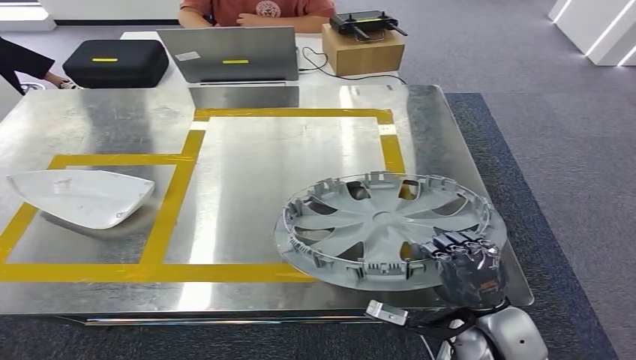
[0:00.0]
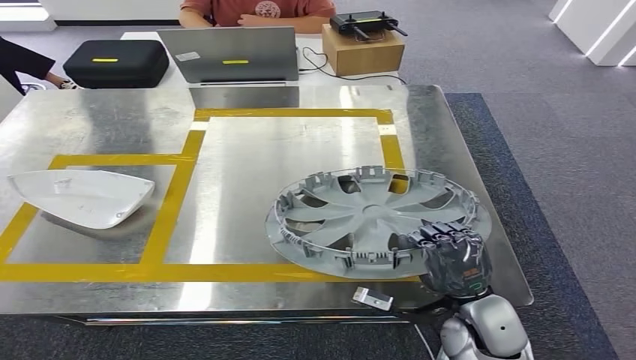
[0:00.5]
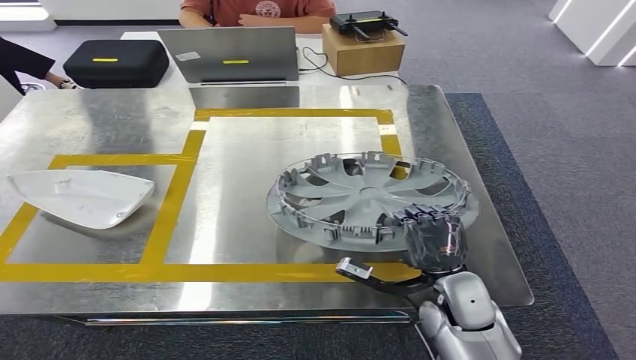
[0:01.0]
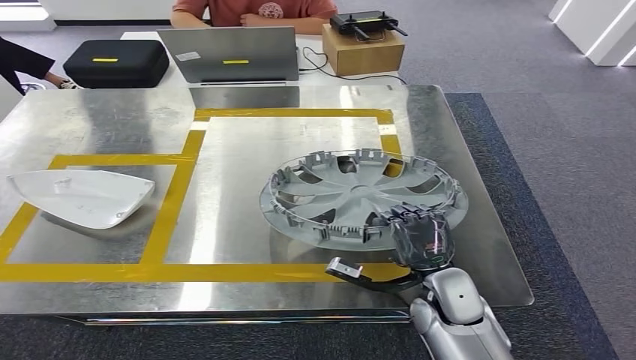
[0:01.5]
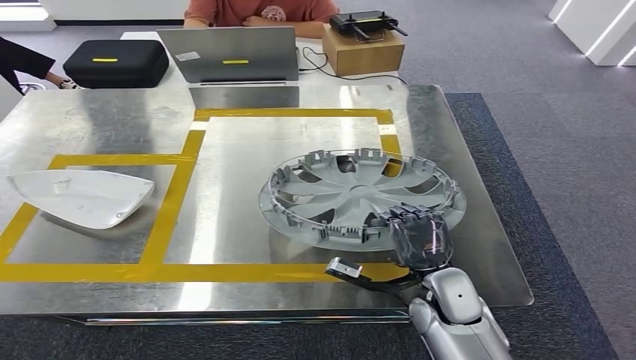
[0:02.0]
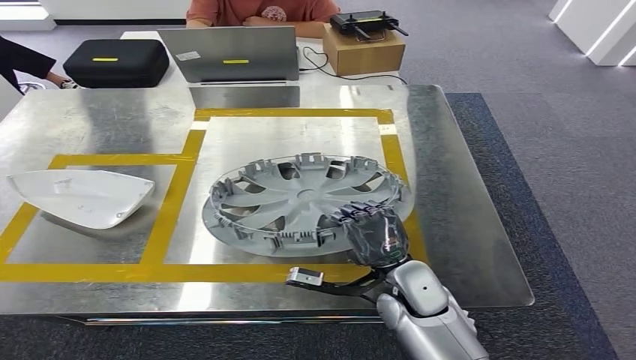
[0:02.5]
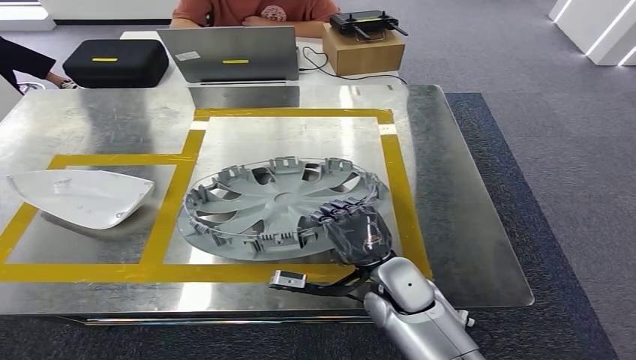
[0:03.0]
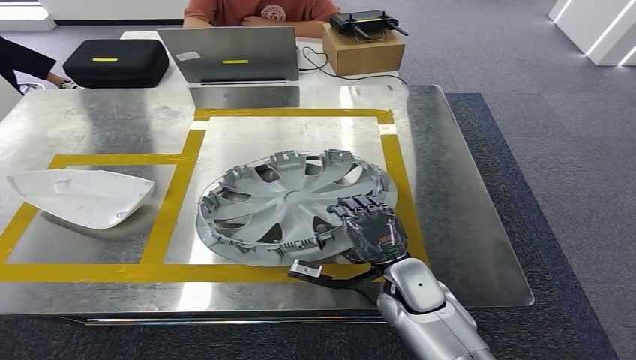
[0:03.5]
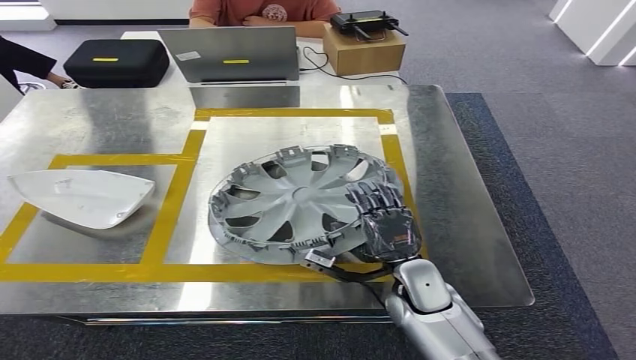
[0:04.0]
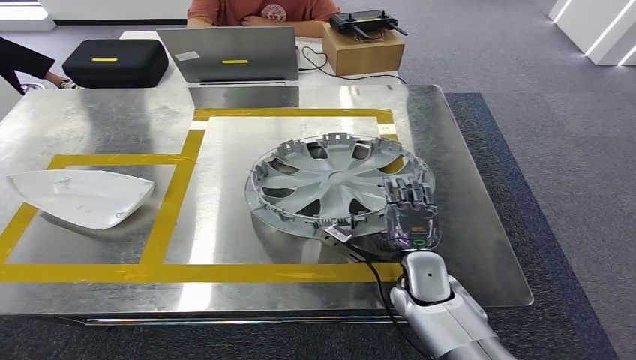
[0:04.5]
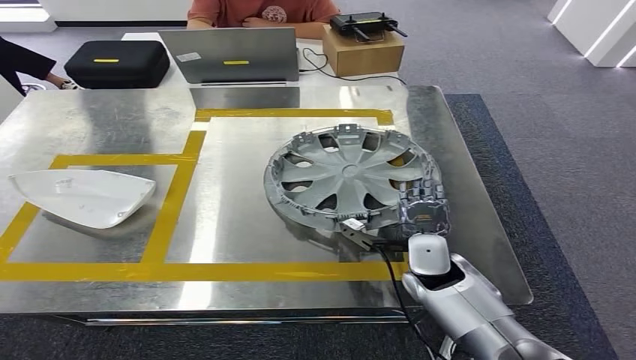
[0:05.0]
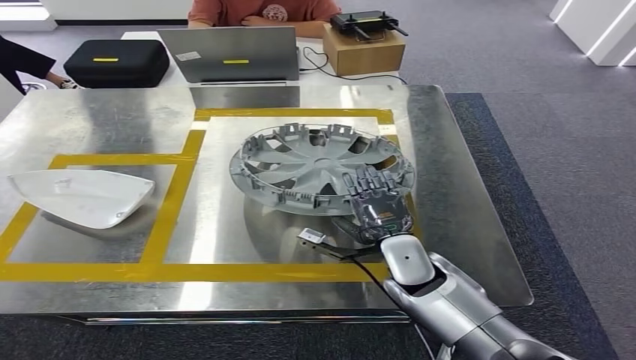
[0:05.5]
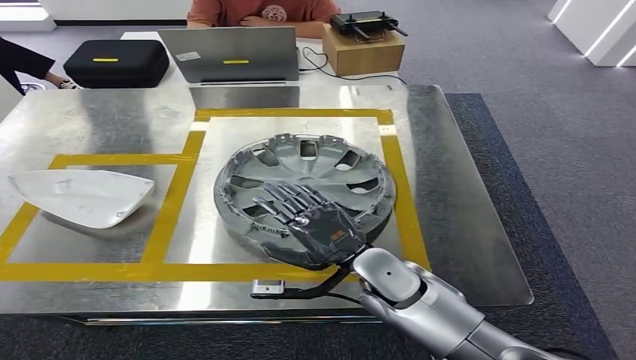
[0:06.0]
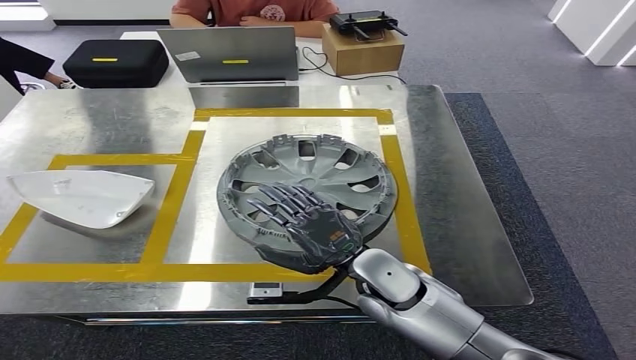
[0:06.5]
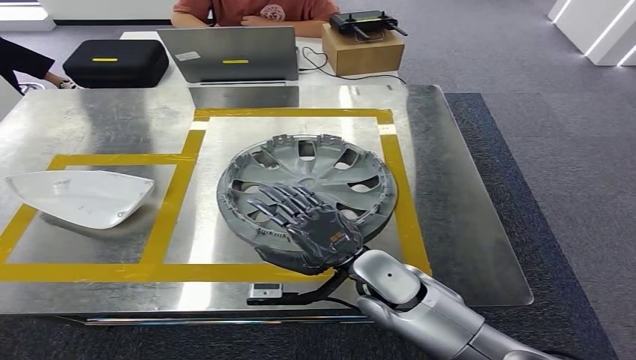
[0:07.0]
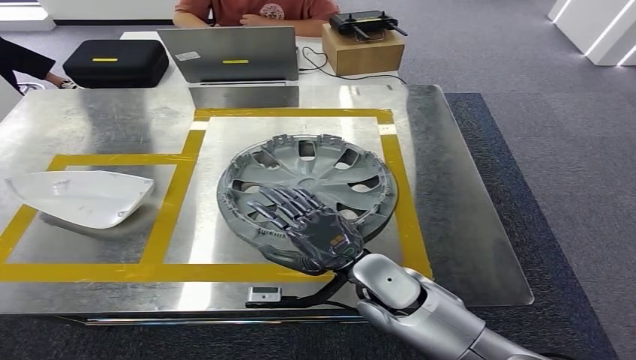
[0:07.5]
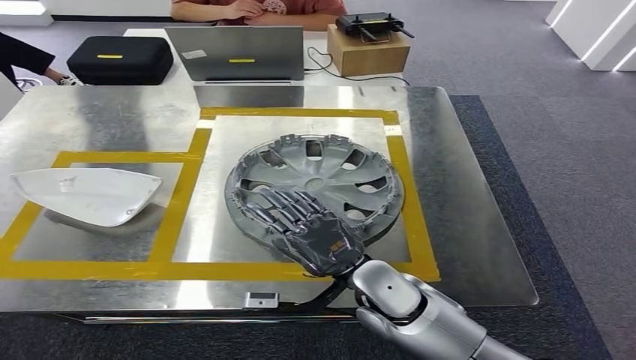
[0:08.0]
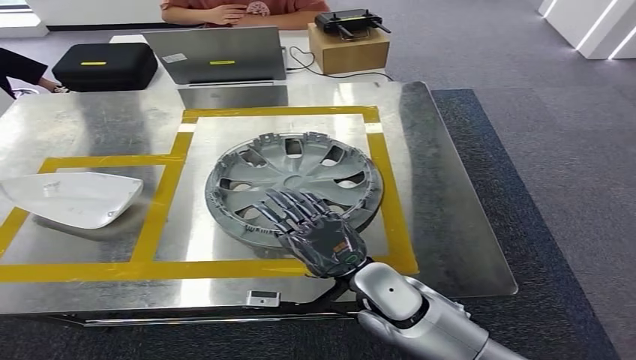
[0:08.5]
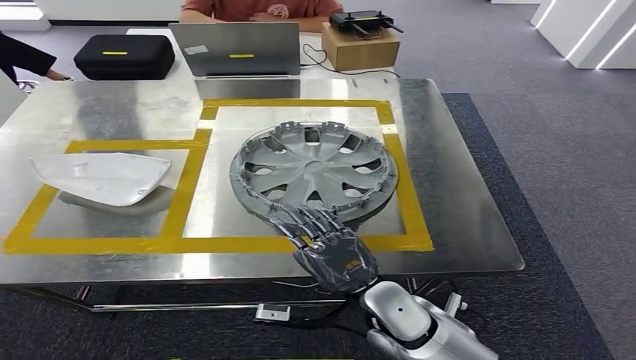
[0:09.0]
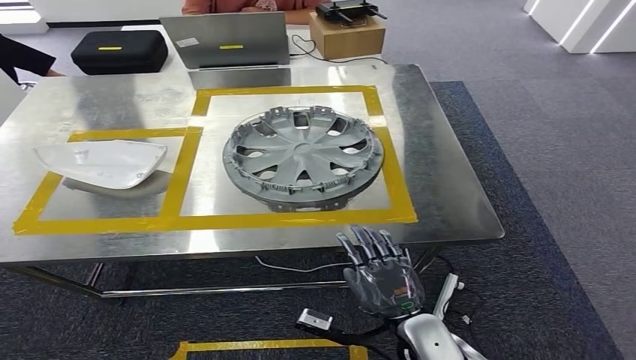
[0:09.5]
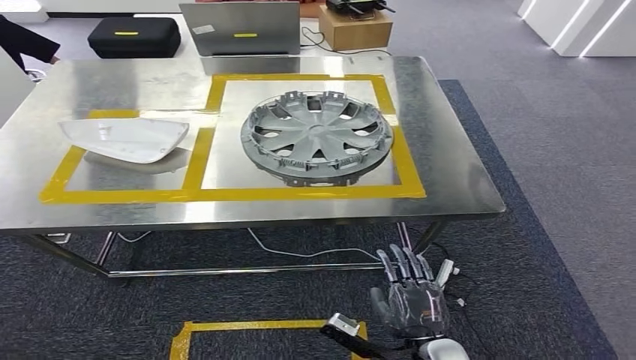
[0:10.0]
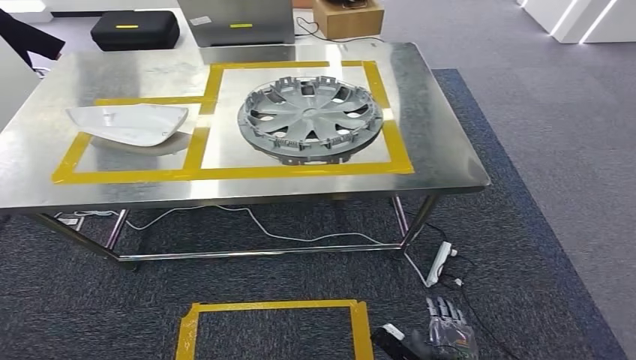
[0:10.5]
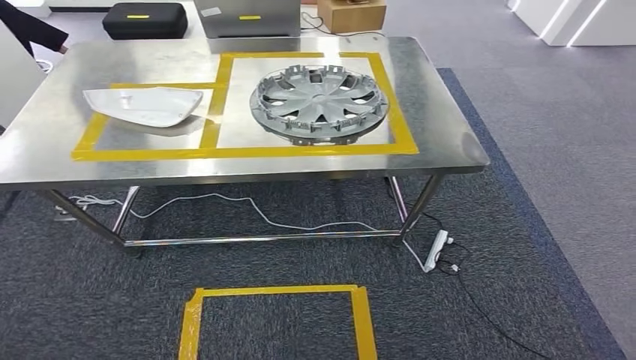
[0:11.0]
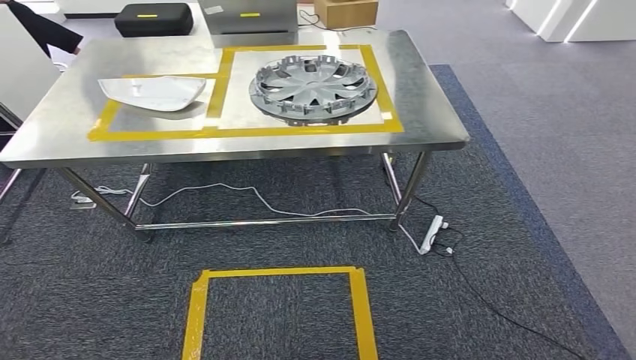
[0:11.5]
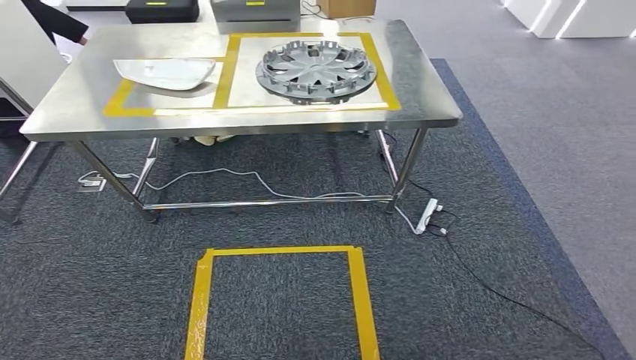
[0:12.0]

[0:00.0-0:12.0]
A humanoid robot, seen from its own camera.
Step, 0:00.0 to 0:10.0: Insert the small parts into the corresponding holes on the workbench.
0:00.0 to 0:02.0: The right hand is displaced forward and to the left by approximately 10 cm.
0:04.0 to 0:06.0: The right hand is displaced to the left and upward by some 5 cm.

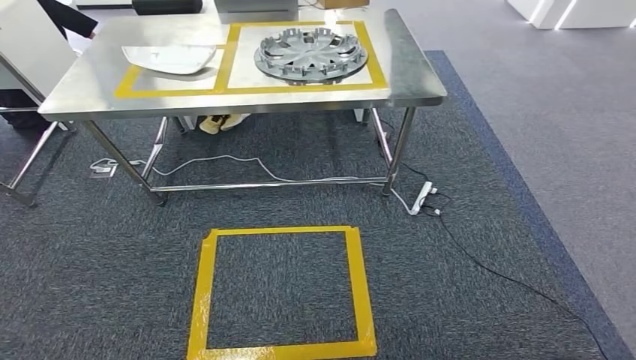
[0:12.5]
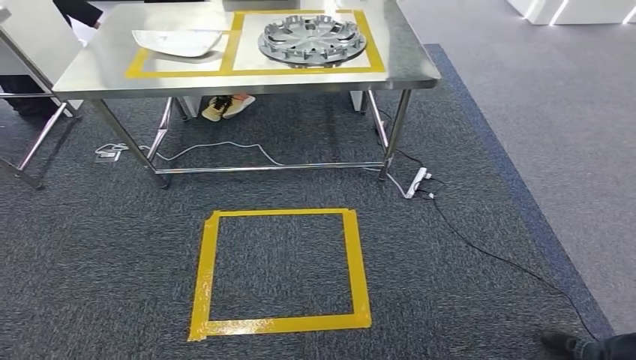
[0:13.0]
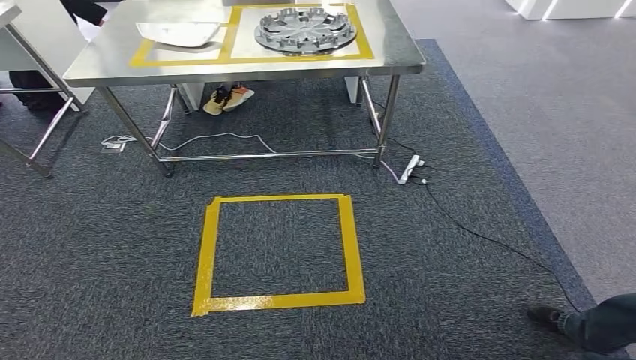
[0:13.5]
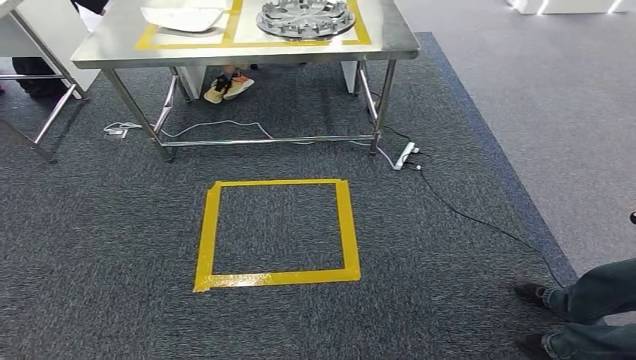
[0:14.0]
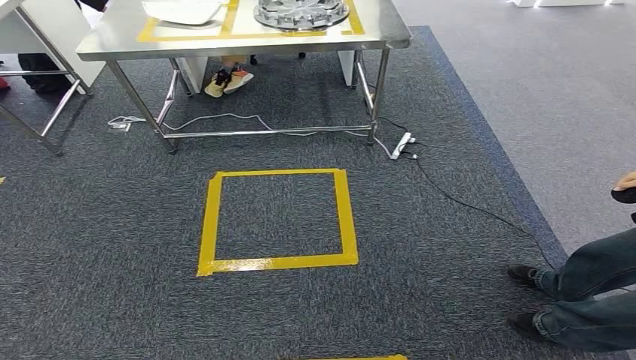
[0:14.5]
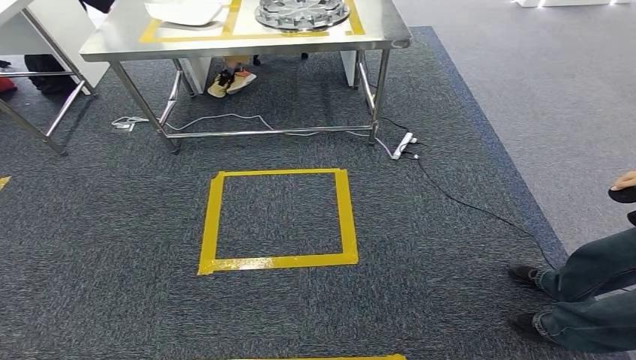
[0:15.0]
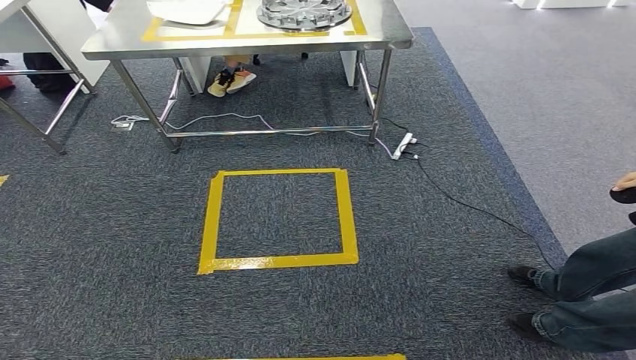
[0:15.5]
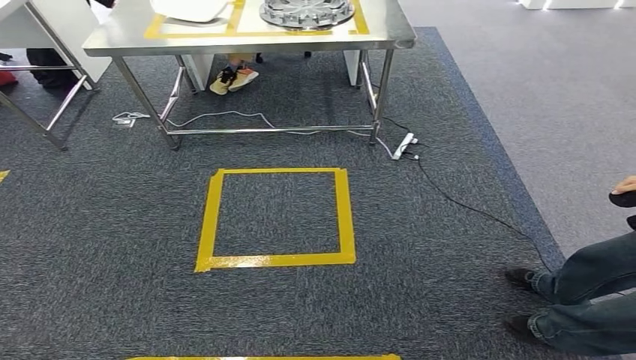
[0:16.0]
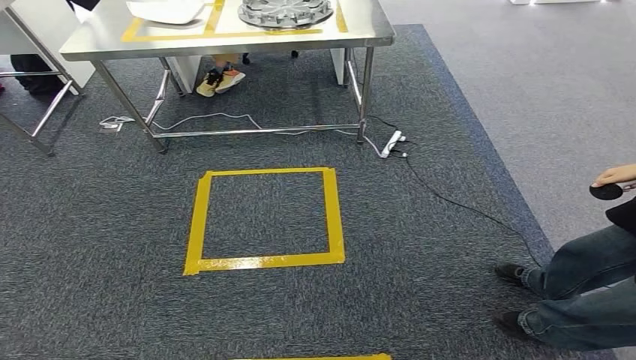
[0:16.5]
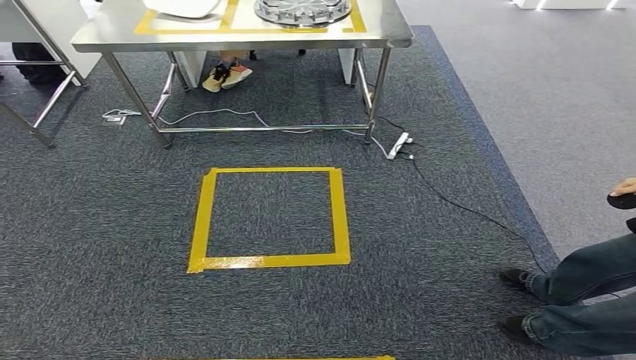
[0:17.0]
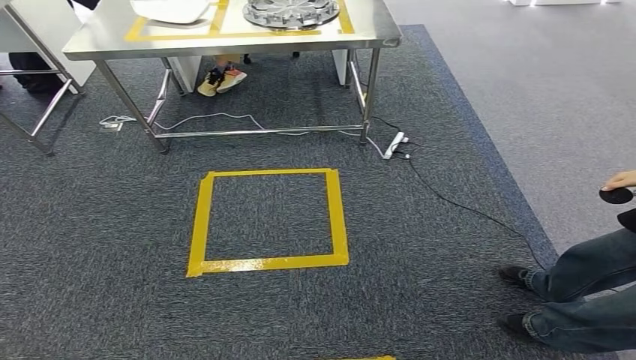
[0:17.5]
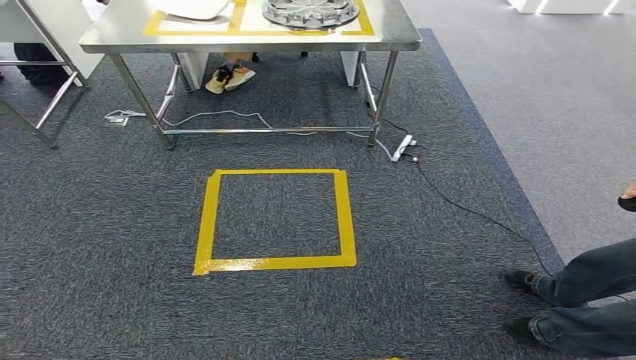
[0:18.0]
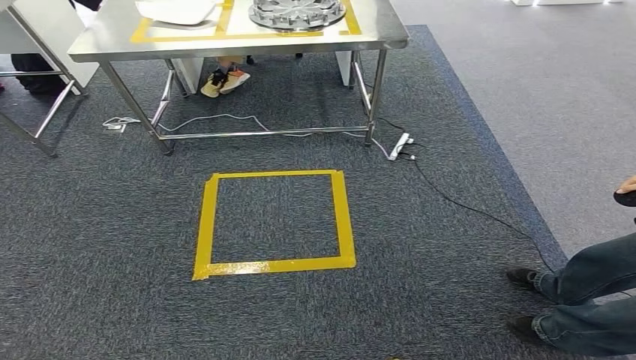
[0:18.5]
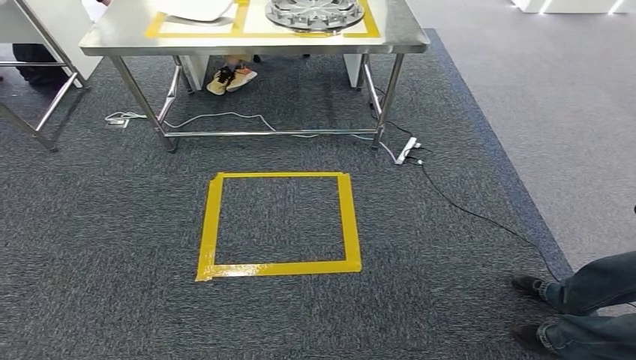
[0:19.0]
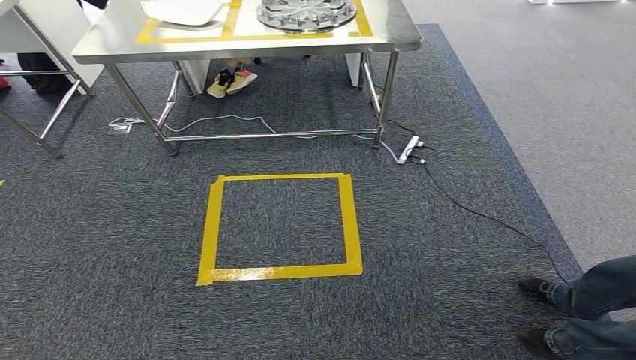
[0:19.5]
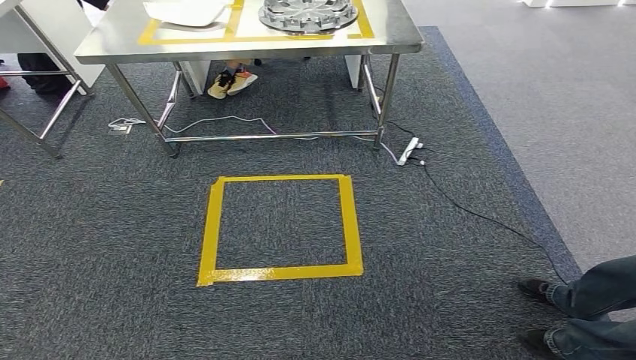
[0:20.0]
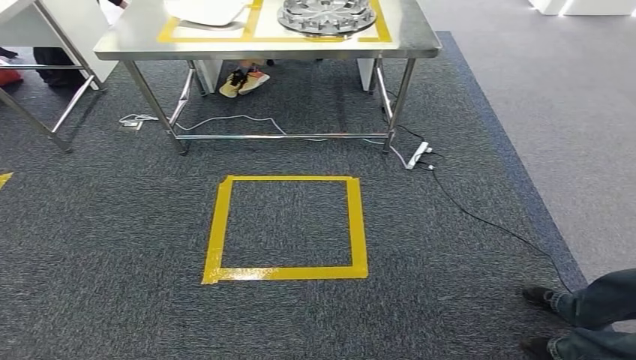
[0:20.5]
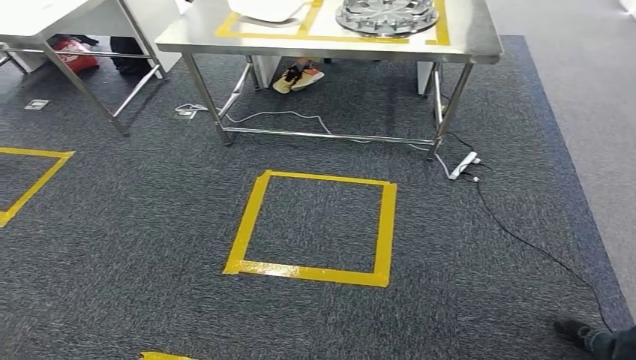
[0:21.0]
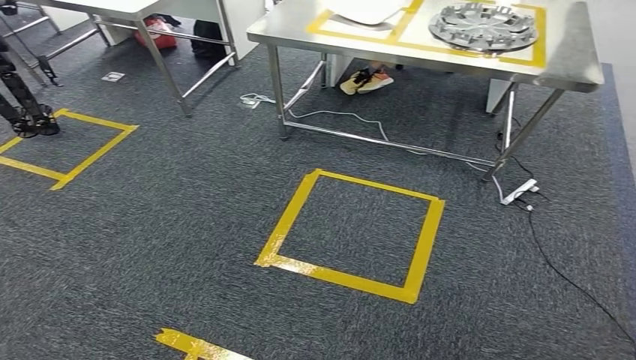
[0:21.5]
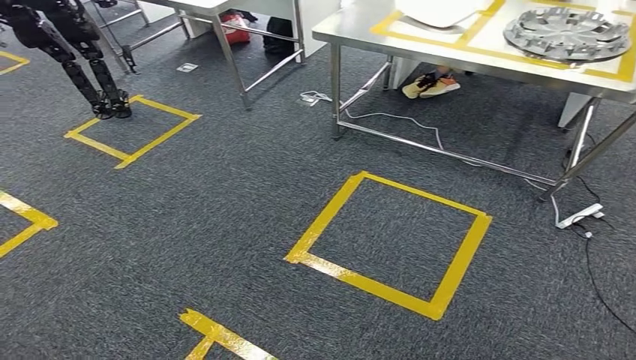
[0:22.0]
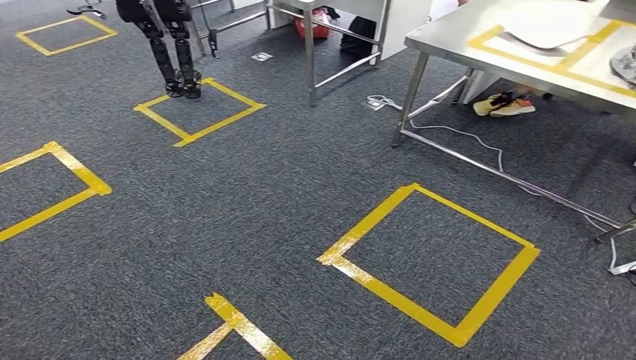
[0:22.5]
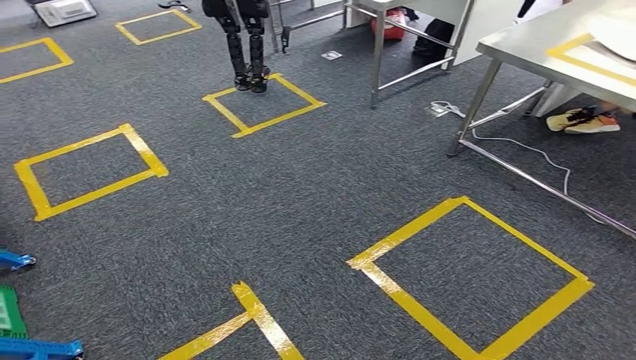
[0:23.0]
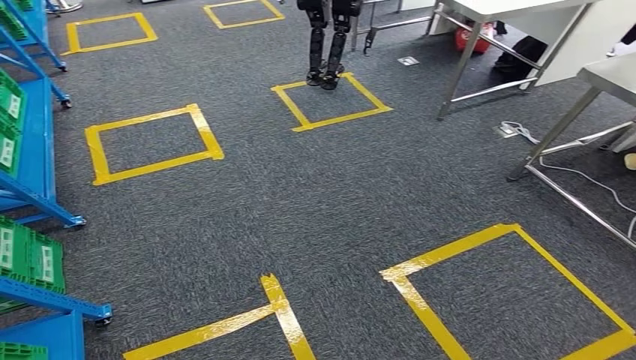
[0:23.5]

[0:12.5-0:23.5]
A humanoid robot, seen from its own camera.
0:14.5 to 0:16.0: The hands stay close to where they were, moving slightly.
0:16.0 to 0:20.0: Neither hand changes place.
